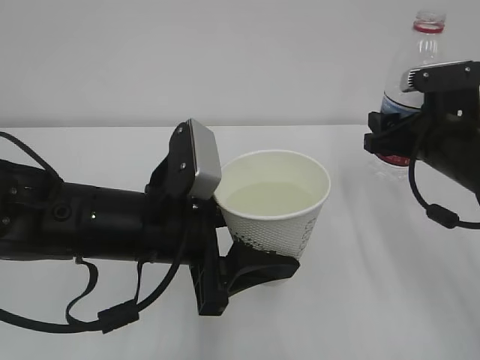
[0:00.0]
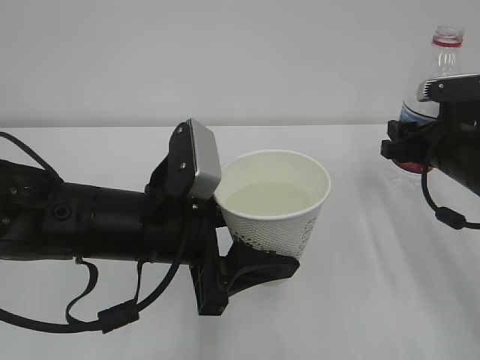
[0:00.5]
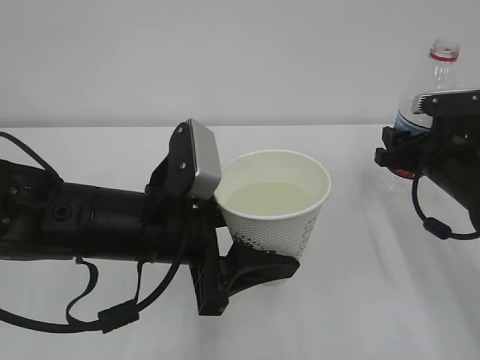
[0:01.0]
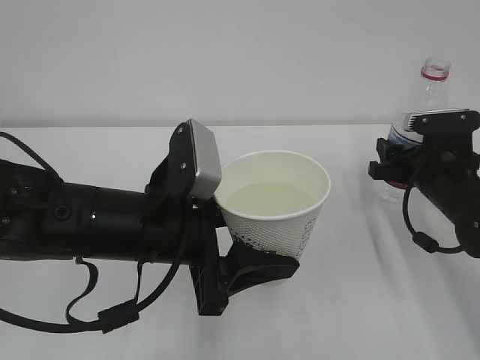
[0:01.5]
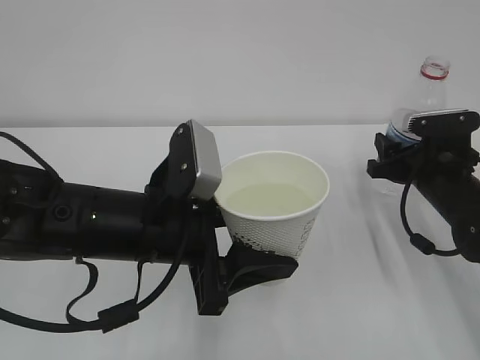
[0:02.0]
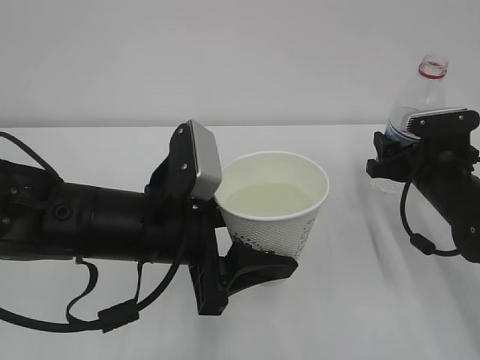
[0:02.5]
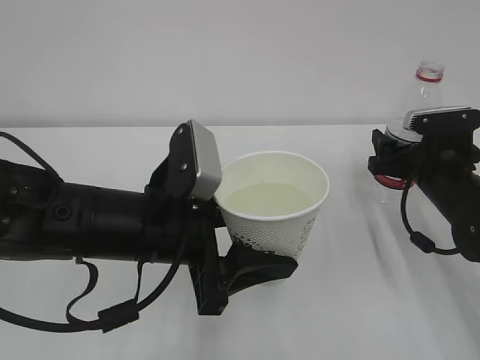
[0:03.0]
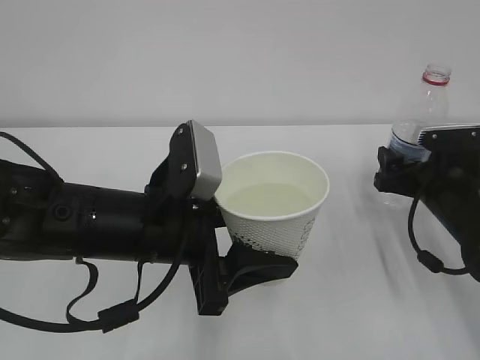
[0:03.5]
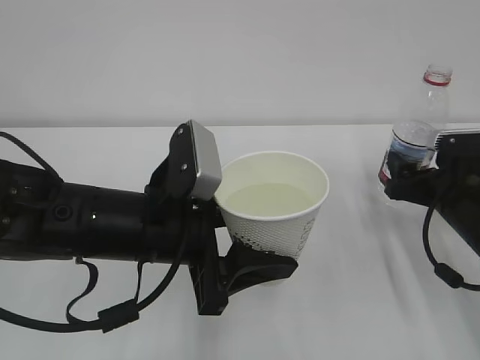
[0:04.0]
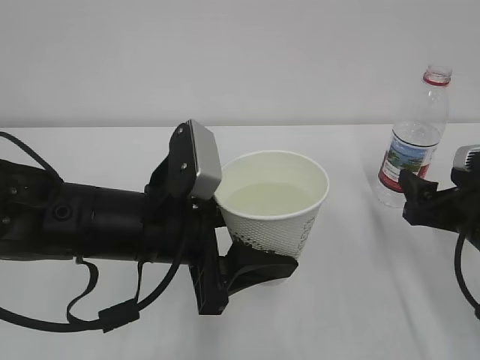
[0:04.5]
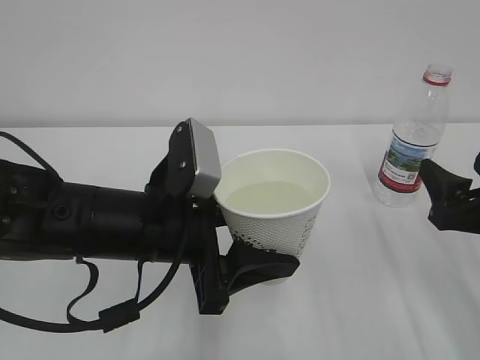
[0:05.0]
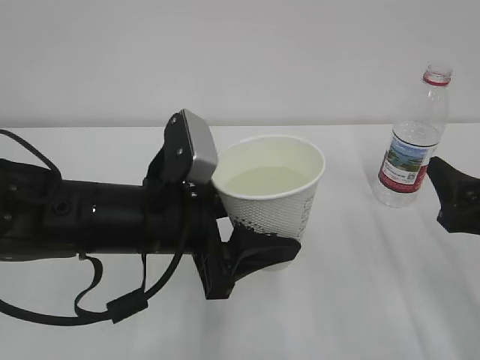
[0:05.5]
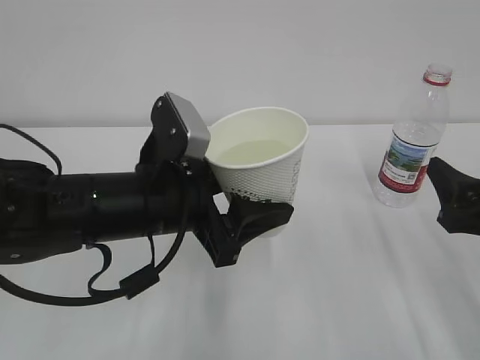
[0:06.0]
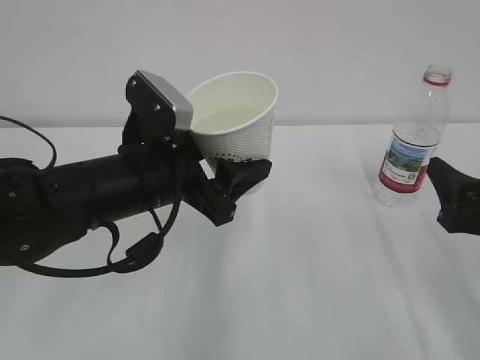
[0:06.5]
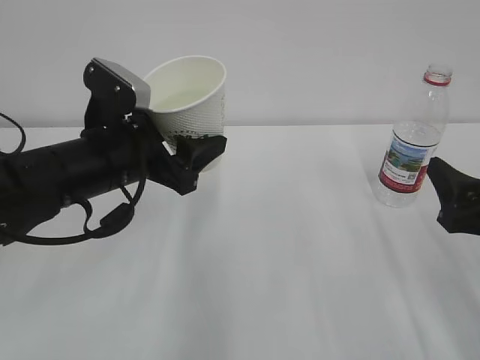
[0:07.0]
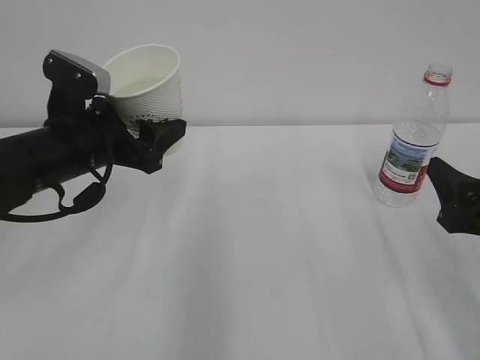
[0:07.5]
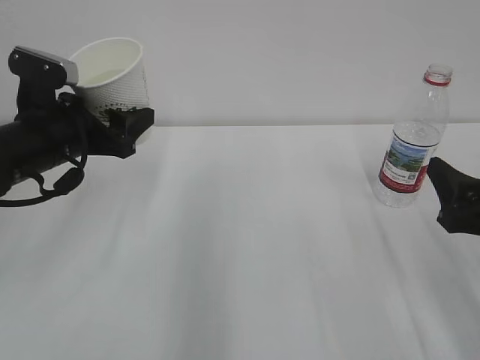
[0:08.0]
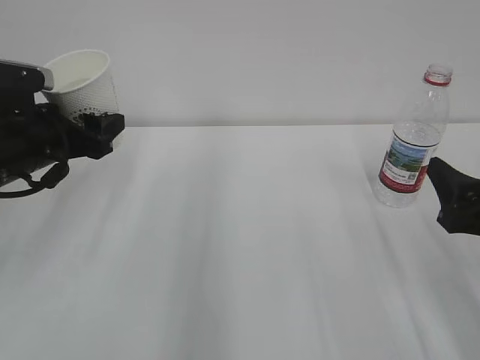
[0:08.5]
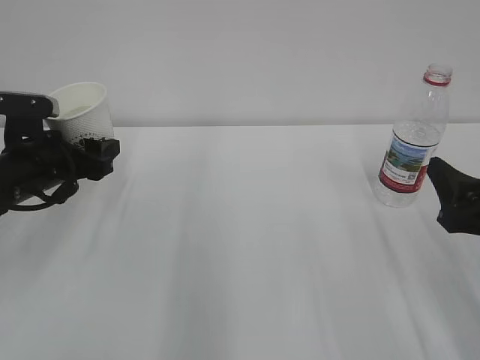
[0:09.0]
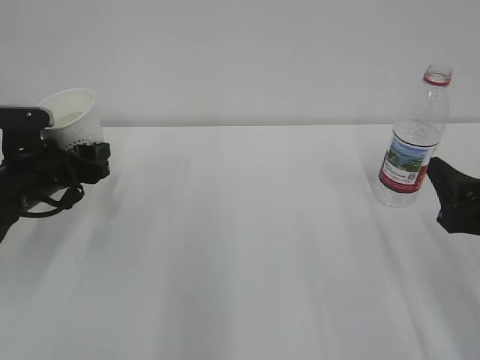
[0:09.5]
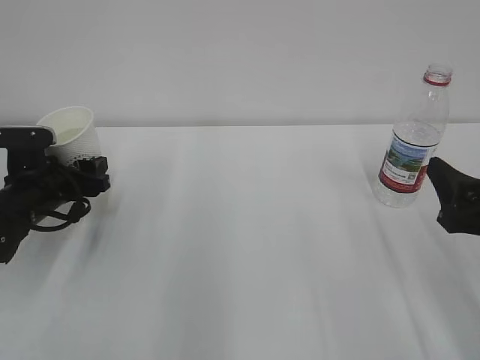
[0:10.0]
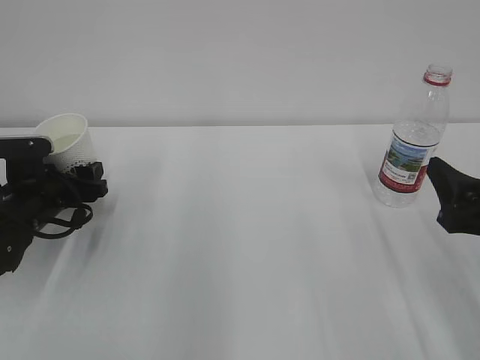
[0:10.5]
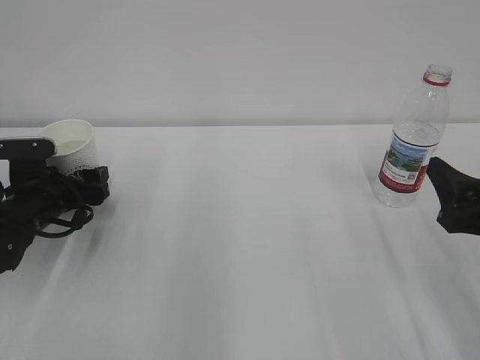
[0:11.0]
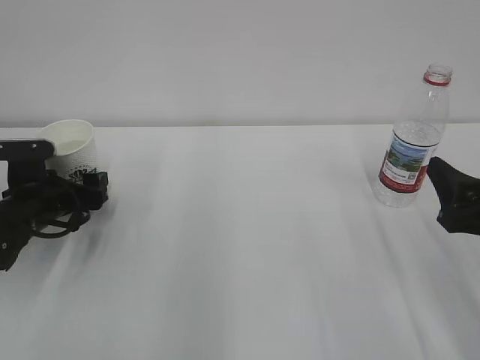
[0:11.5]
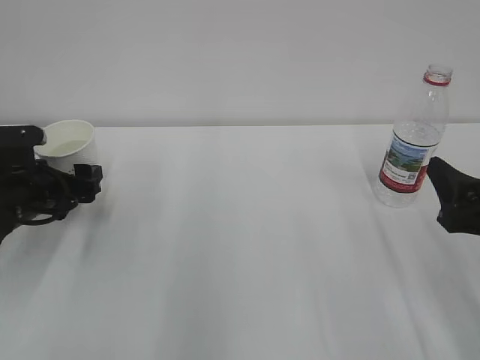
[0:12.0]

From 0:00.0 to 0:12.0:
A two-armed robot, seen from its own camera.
From 0:00.0 to 0:02.0: The right gripper shifts approximately 5 cm downward.
From 0:02.0 to 0:04.0: The right gripper opens up.
From 0:04.0 to 0:06.0: The right gripper travels backward and upward by roughly 10 cm.
From 0:06.0 to 0:08.0: The left gripper heads to the left and forward, covering roughly 15 cm.
From 0:08.0 to 0:10.0: The left gripper moves downward and to the left, approximately 10 cm.
From 0:10.0 to 0:12.0: The left gripper opens.

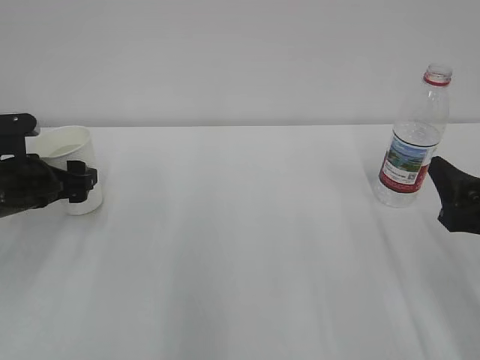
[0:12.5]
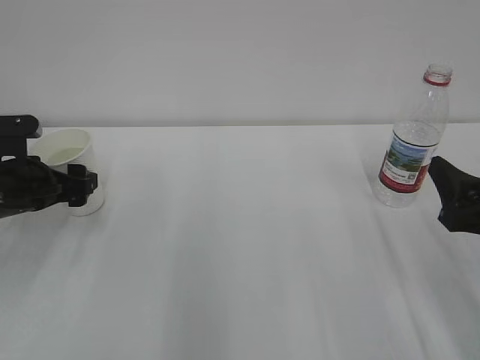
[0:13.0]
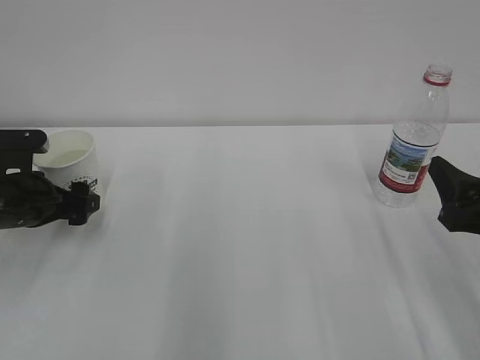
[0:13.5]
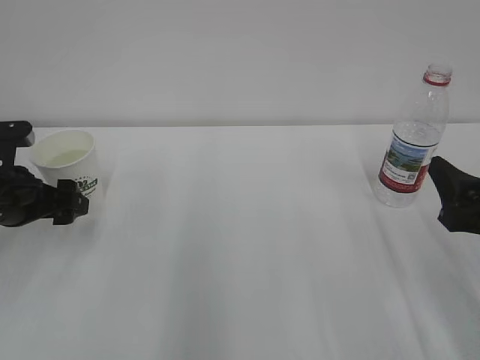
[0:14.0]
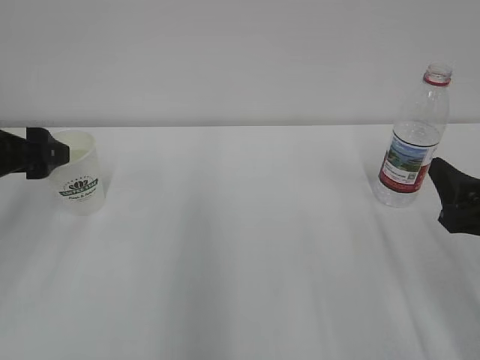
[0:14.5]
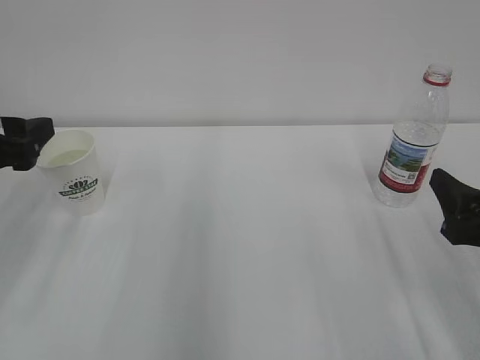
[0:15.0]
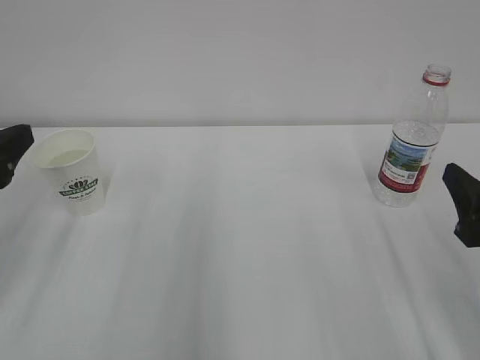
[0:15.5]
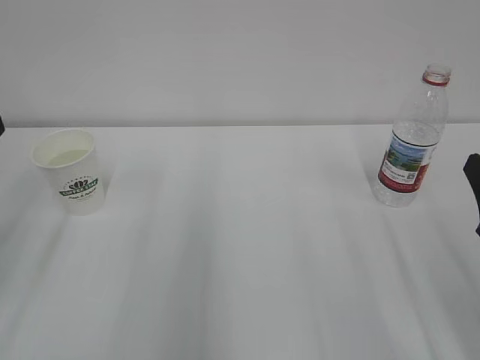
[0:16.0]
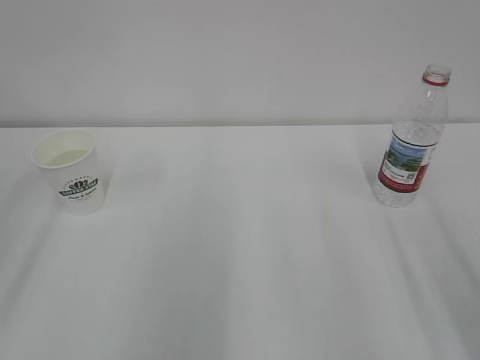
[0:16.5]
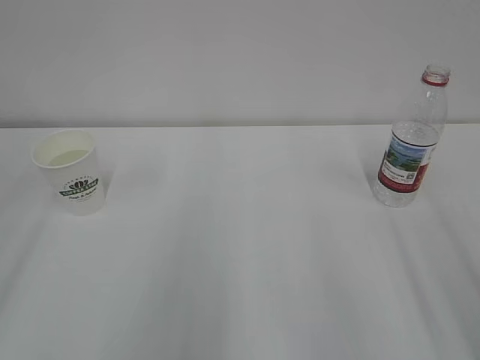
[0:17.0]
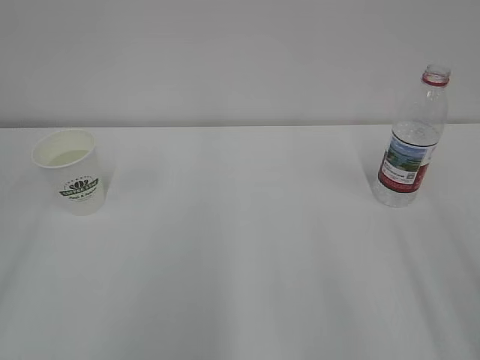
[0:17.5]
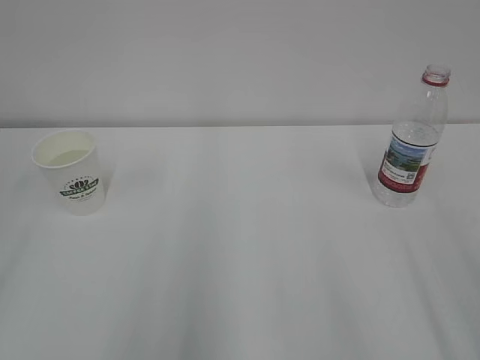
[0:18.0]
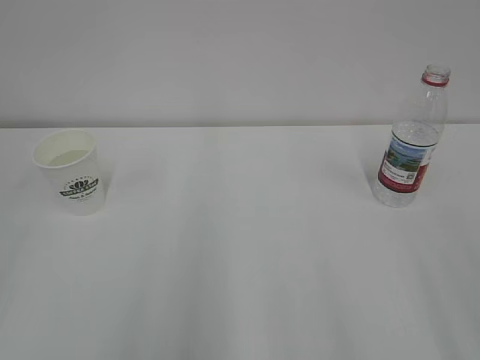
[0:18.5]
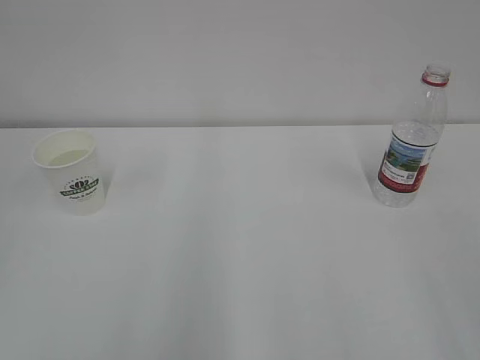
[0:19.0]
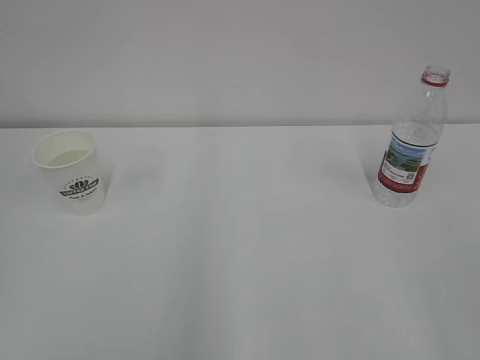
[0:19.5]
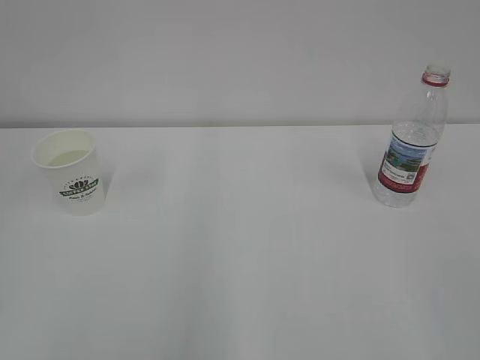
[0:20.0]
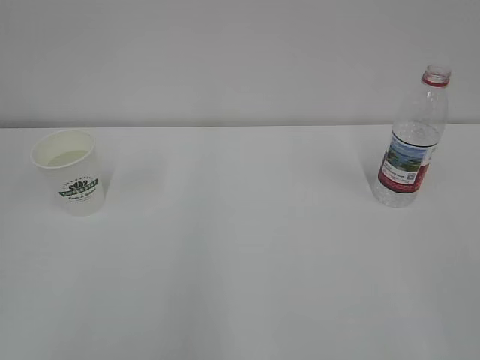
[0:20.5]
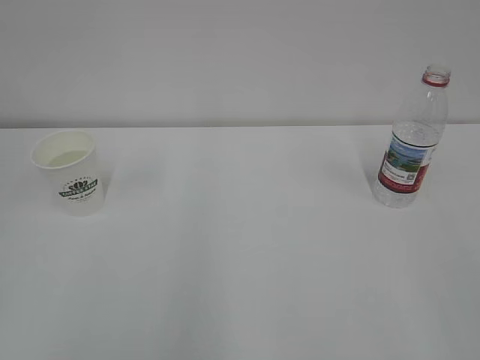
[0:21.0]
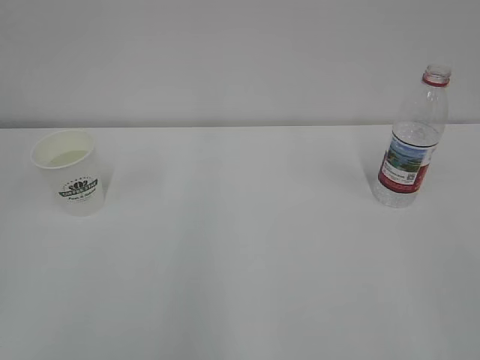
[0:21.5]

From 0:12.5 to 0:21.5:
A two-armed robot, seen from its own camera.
From 0:12.5 to 0:14.5: The left gripper travels upward by about 10 cm.
From 0:14.5 to 0:17.0: The left gripper travels backward and upward by roughly 20 cm, and closes up. The right gripper travels backward and upward by roughly 10 cm.
